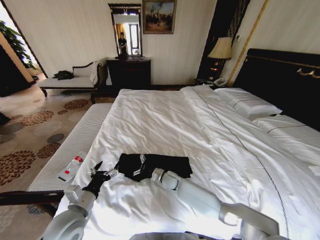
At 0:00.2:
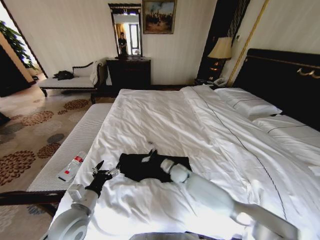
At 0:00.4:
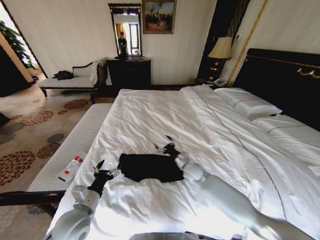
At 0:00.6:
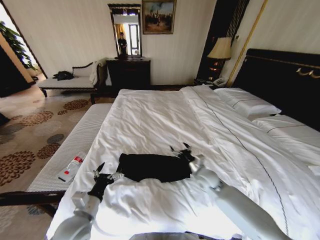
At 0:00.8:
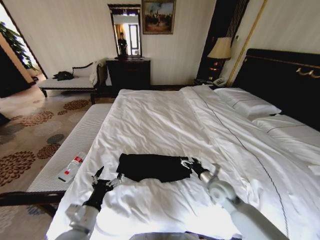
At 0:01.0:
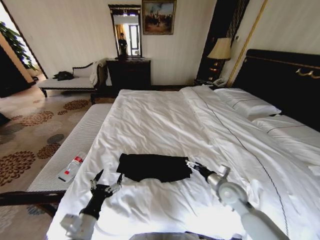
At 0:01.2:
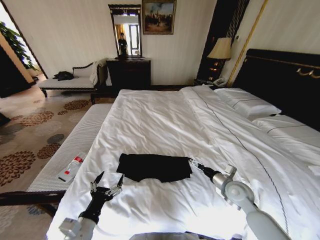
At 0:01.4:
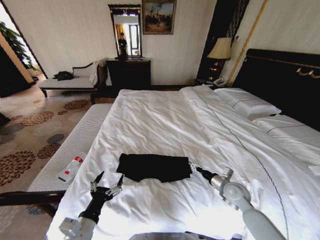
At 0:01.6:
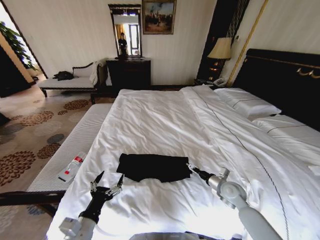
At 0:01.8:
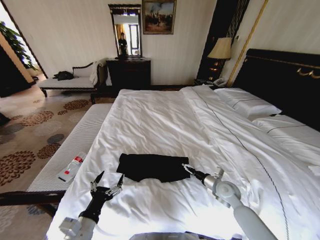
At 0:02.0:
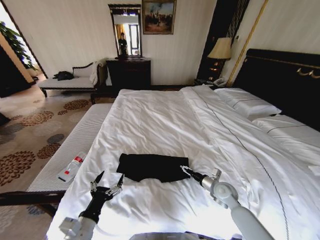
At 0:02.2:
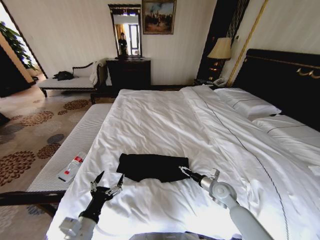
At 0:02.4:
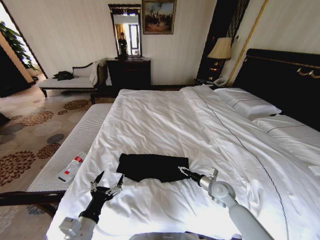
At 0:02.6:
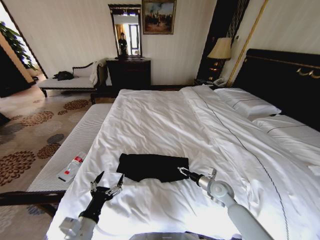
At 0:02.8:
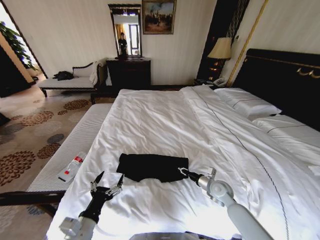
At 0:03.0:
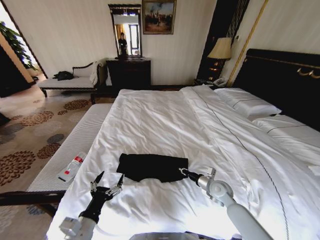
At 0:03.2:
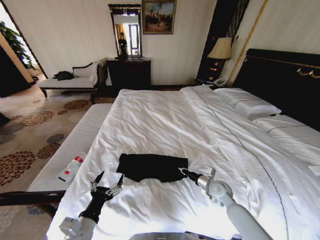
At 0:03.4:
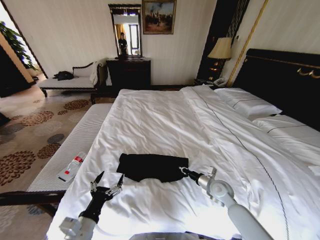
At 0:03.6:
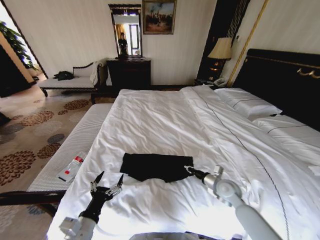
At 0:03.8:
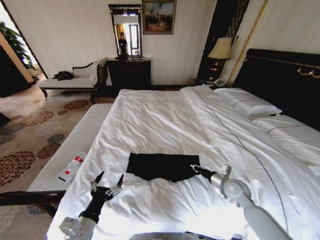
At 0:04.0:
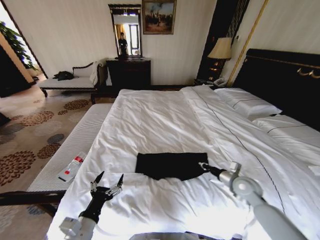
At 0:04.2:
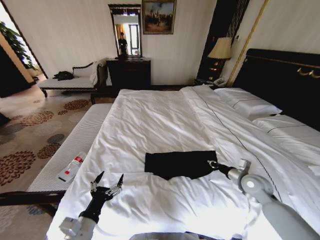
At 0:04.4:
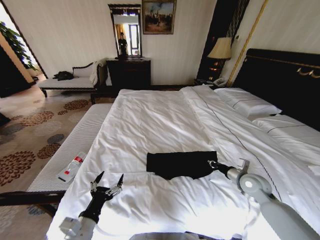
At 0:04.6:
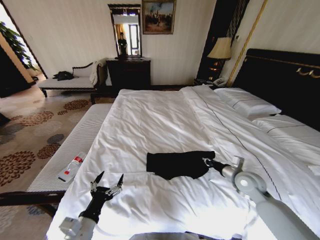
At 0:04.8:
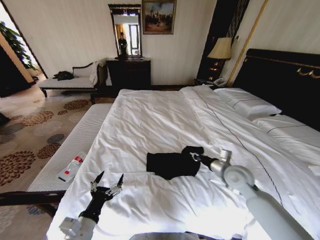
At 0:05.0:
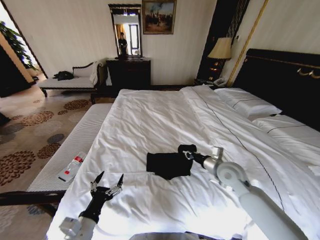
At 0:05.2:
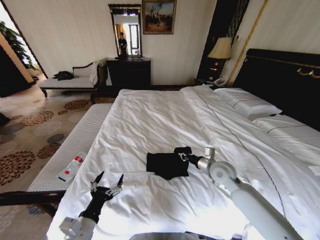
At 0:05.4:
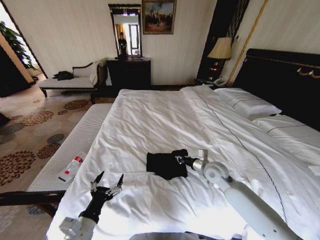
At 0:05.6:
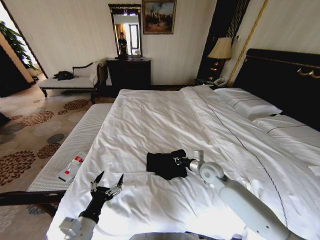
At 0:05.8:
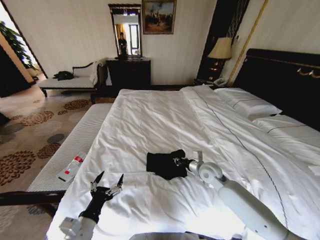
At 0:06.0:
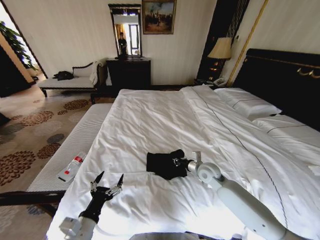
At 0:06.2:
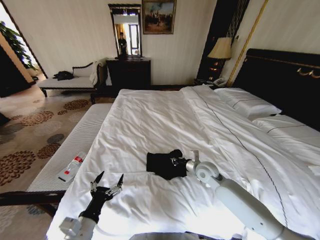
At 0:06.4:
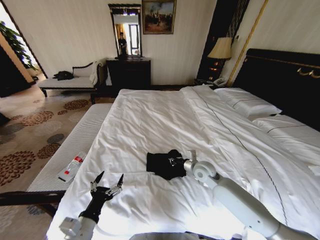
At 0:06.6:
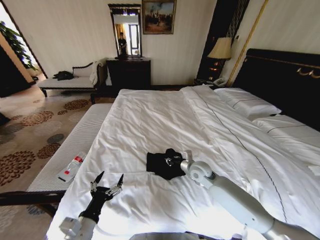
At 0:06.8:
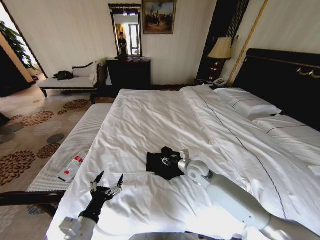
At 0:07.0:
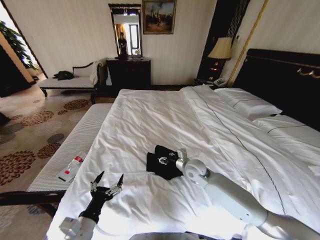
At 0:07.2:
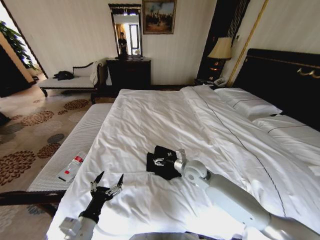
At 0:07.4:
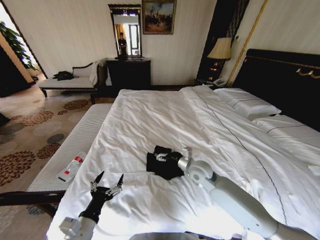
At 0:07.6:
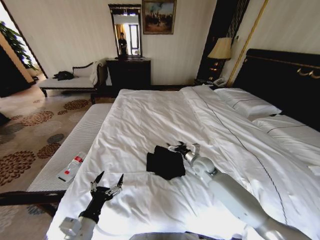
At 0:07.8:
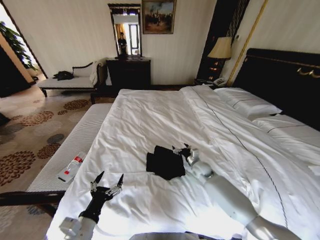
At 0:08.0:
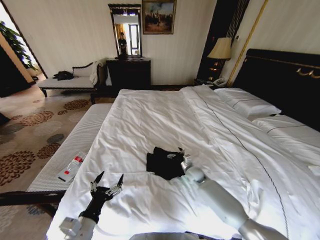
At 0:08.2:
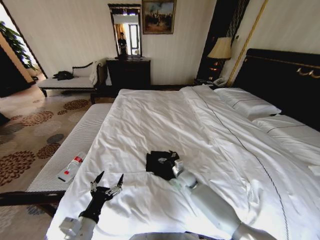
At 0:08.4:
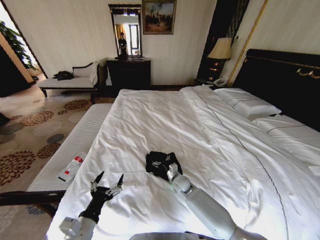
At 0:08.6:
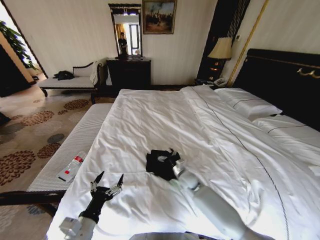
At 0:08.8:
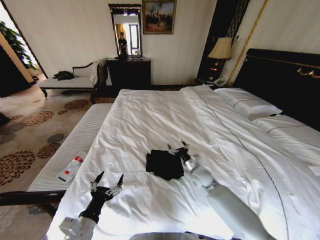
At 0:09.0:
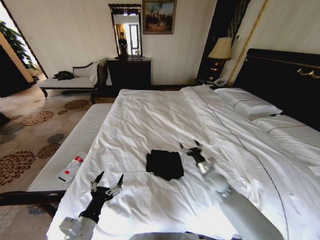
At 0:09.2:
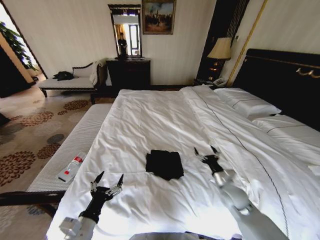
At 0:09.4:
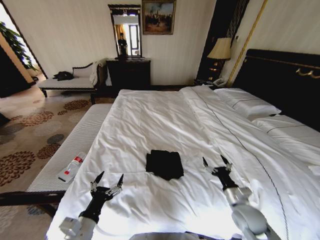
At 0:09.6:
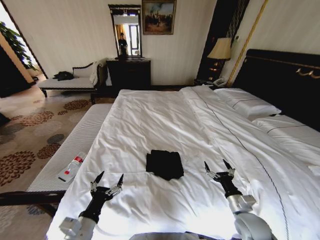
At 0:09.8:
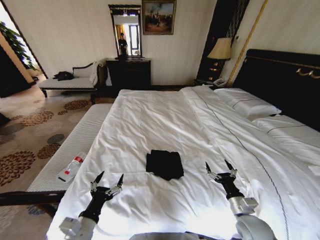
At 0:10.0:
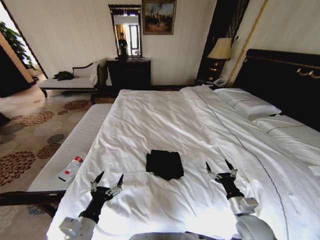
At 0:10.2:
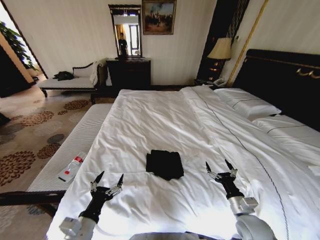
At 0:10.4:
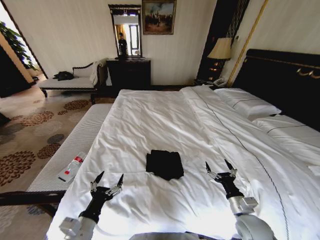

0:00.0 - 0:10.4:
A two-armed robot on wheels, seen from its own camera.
Task of the whole recording: Fold the clothes on the bed.
0:00.0 - 0:01.4: The right gripper shifts approximately 25 cm to the right, while the left gripper travels backward by roughly 10 cm.
0:01.4 - 0:03.0: The right gripper shifts by some 5 cm, and closes its fingers.
0:03.0 - 0:04.4: The right gripper heads to the right and upward, covering approximately 15 cm.
0:04.4 - 0:06.0: The right gripper heads to the left, covering about 15 cm.
0:06.0 - 0:07.4: The right gripper heads to the left, covering some 5 cm, and opens up.
0:07.4 - 0:09.0: The right gripper travels to the right and downward by some 10 cm.
0:09.0 - 0:10.4: The right gripper goes approximately 15 cm backward.

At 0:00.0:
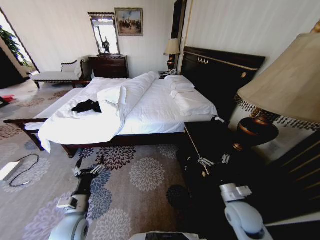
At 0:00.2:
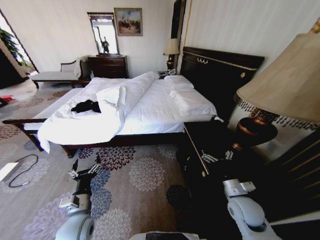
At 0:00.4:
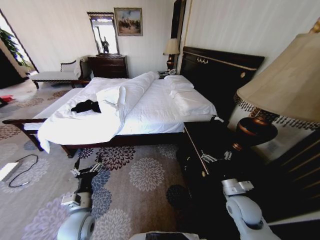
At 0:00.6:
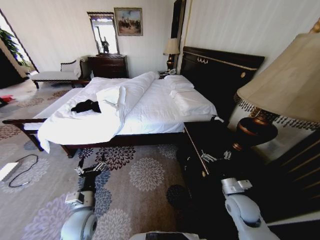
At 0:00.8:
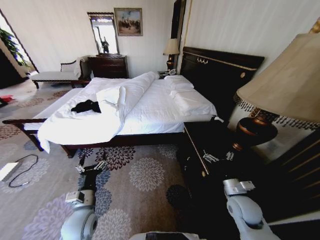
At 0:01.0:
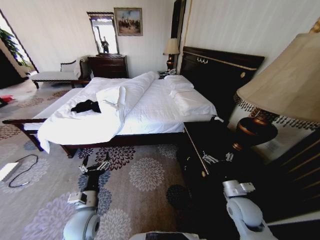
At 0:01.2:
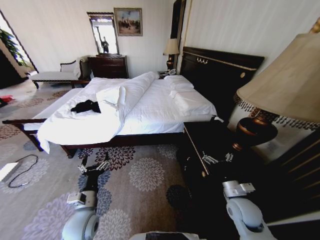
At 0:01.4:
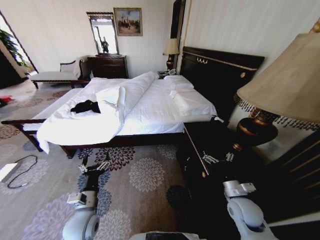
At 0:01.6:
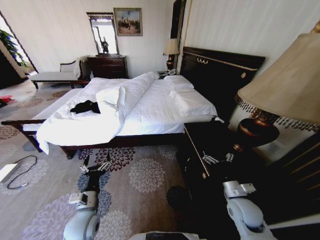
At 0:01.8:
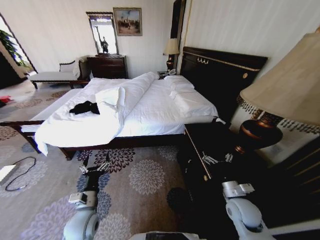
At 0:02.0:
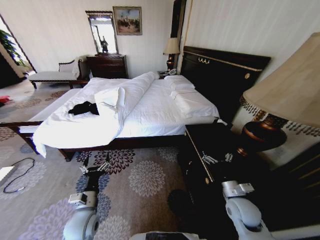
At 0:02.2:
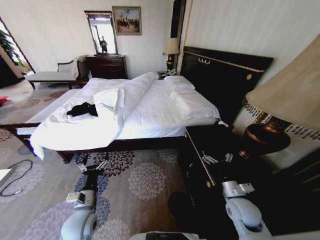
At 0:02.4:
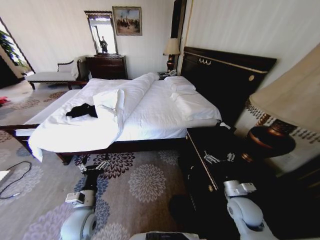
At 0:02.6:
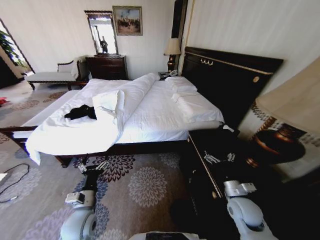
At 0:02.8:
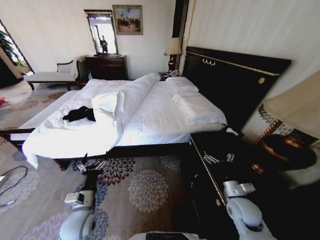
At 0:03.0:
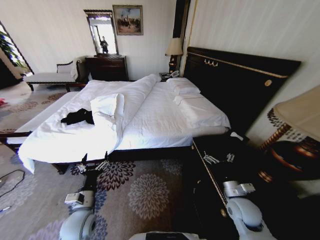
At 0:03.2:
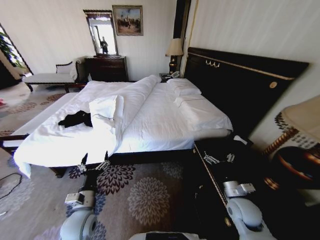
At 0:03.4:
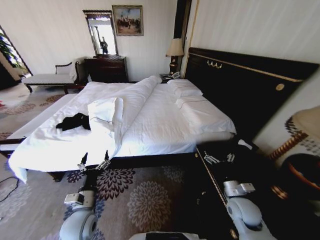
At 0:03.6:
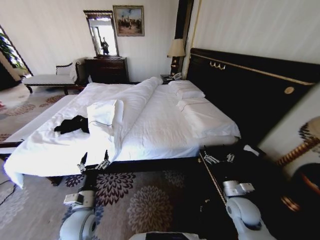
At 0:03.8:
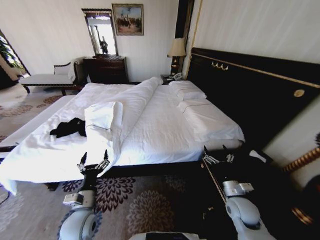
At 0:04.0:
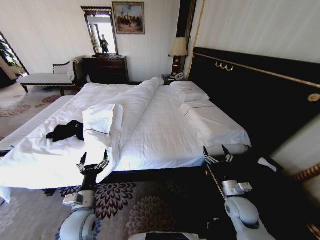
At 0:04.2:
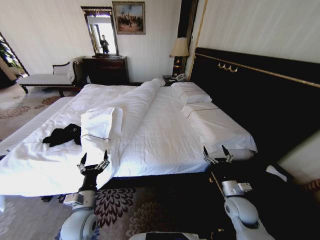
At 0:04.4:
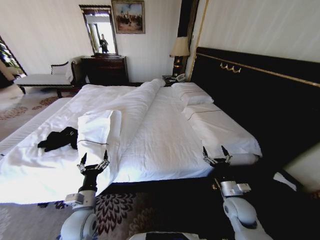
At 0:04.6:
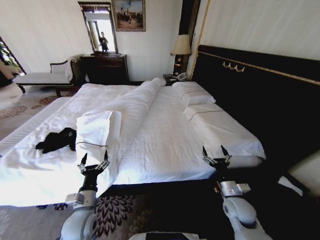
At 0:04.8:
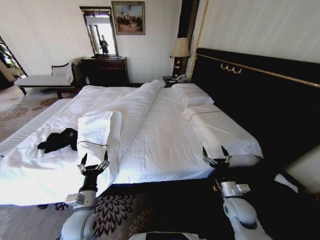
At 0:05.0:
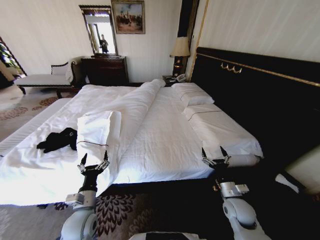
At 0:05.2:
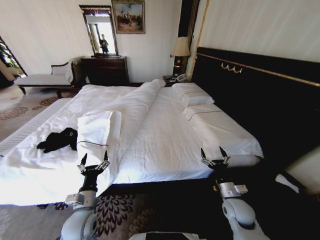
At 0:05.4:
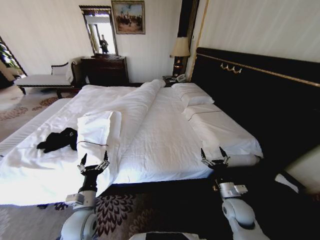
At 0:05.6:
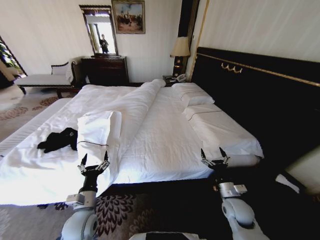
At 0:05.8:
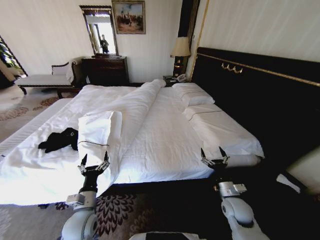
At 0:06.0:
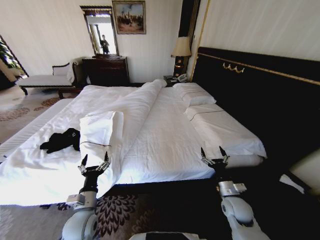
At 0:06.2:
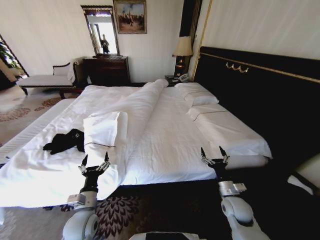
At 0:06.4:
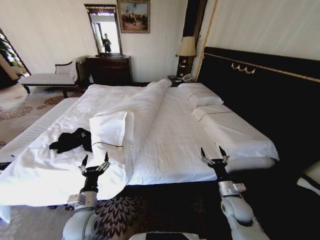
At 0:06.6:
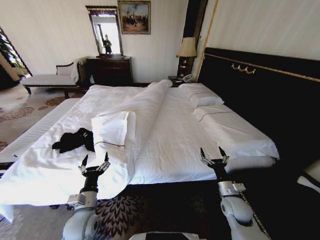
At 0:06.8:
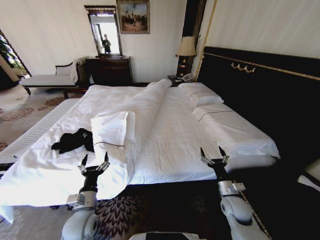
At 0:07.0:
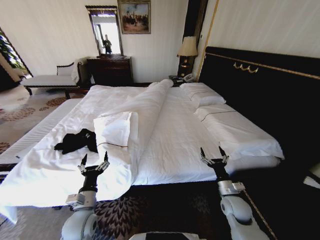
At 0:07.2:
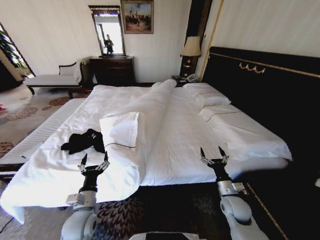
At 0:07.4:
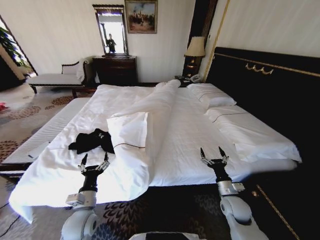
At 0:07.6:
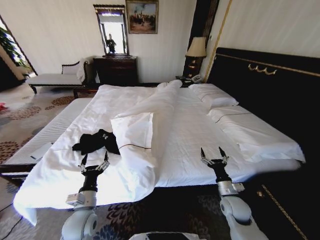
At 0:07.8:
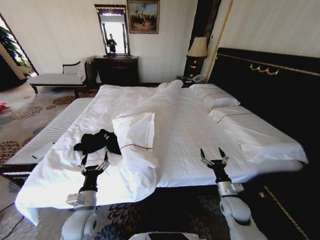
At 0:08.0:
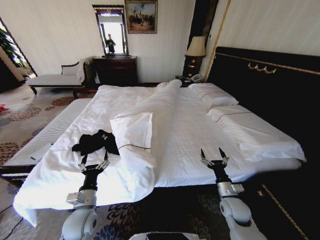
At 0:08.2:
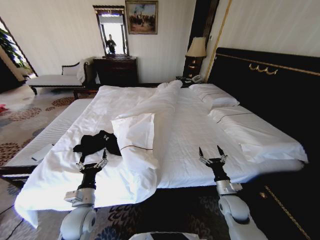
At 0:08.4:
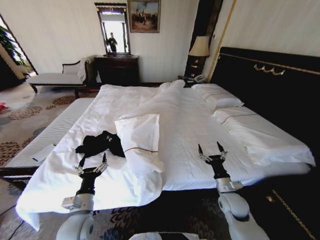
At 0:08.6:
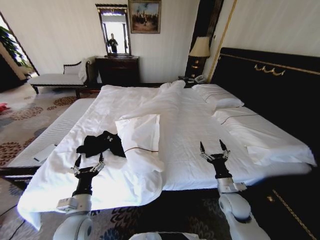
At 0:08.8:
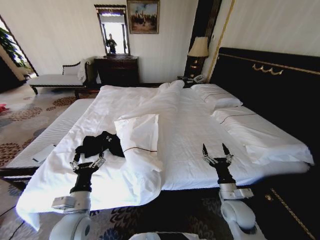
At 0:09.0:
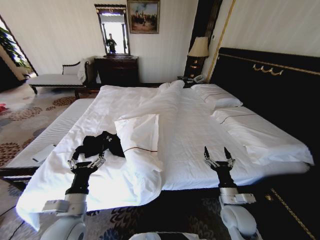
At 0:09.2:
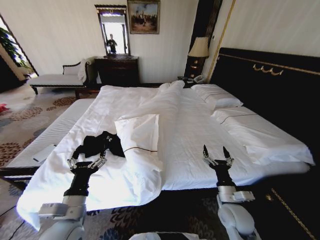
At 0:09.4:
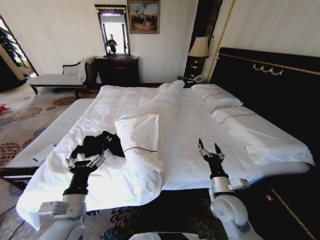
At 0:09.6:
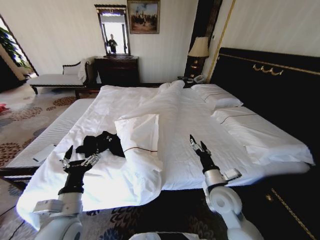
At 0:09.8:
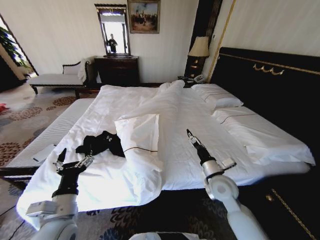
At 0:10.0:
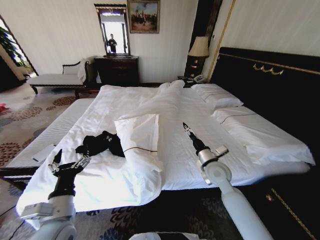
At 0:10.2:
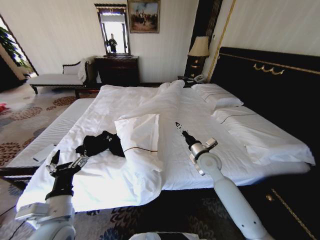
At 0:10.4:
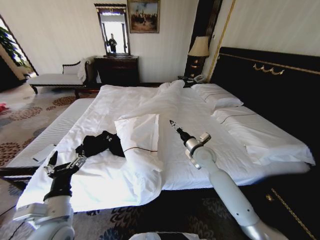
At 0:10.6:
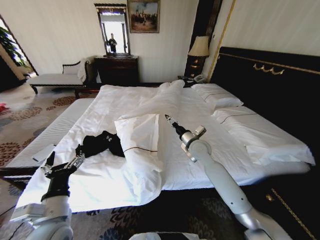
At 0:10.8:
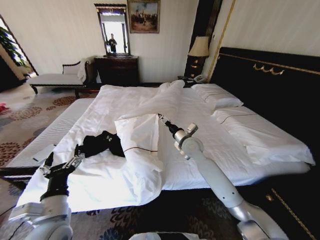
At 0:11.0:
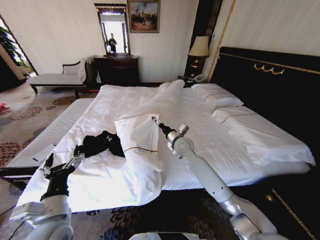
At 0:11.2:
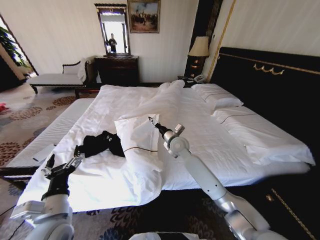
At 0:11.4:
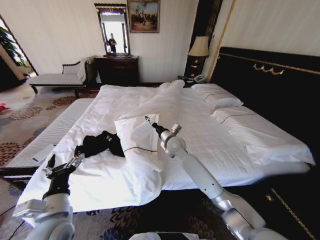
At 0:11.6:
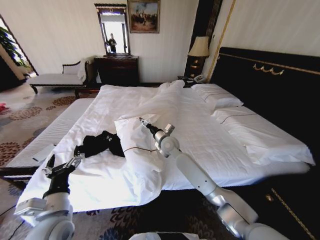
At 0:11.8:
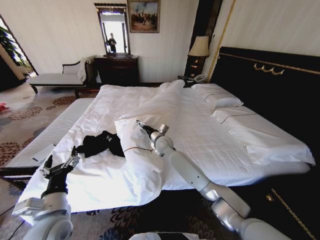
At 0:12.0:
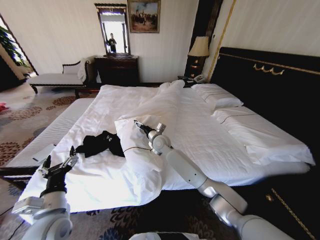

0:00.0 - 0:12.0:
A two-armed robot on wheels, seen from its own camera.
Task of the whole recording: Fold the clothes on the bed.
0:04.4 - 0:06.0: The grippers move only a little.
0:07.6 - 0:09.0: The right gripper ends up roughly 5 cm from where it was. The left gripper moves upward, about 5 cm.
0:09.0 - 0:10.4: The right gripper is displaced forward, upward and to the left by roughly 25 cm.
0:10.4 - 0:12.0: The right gripper moves to the left and forward, approximately 20 cm.
